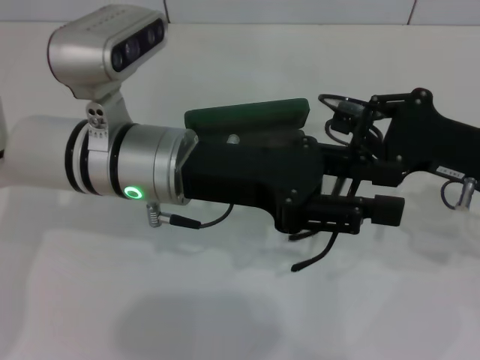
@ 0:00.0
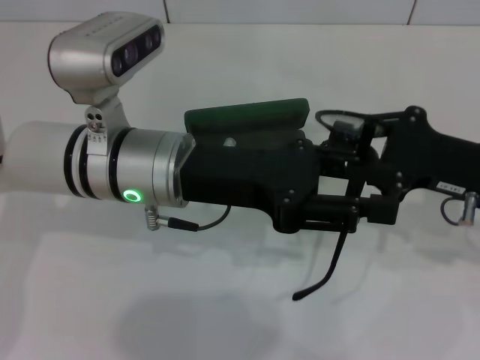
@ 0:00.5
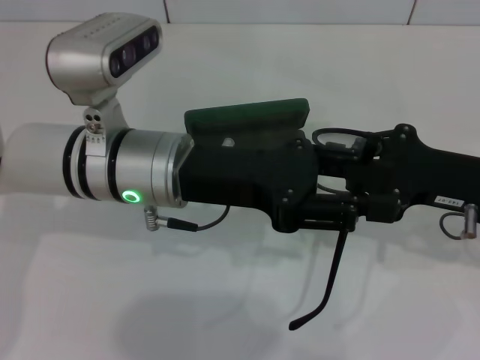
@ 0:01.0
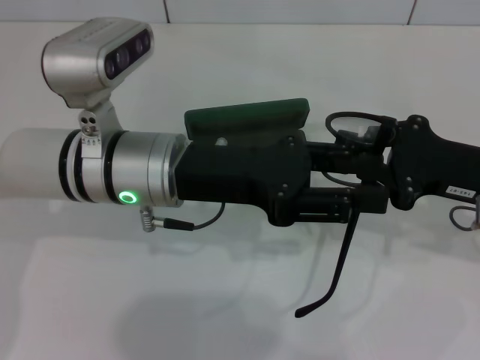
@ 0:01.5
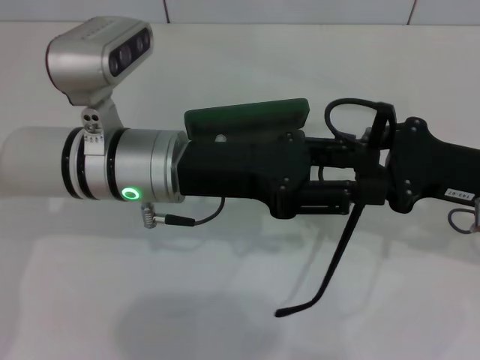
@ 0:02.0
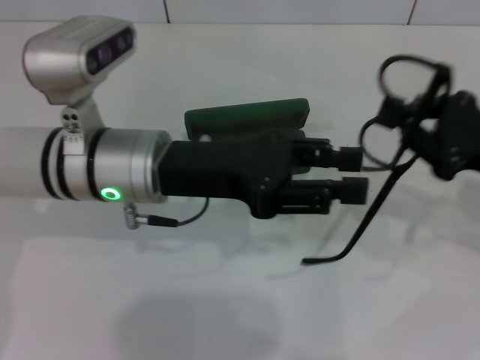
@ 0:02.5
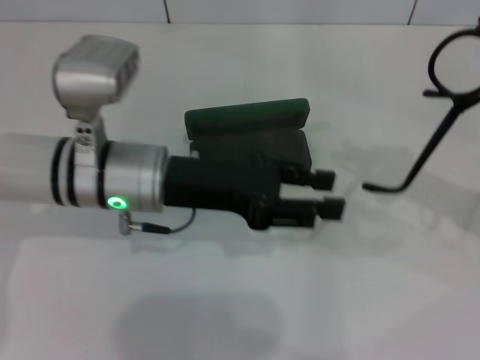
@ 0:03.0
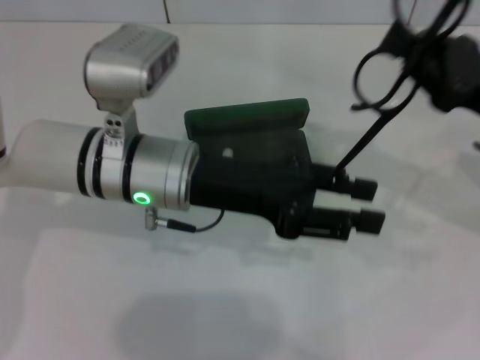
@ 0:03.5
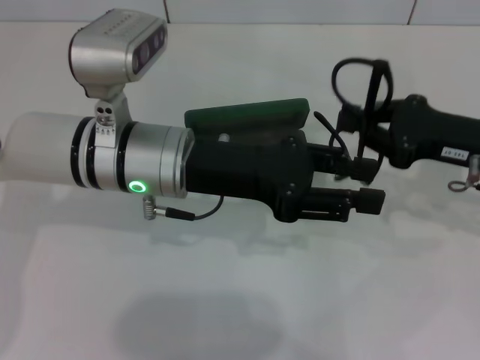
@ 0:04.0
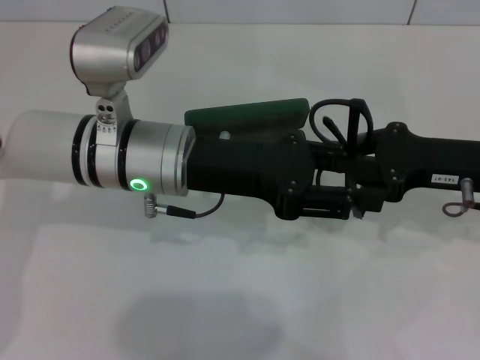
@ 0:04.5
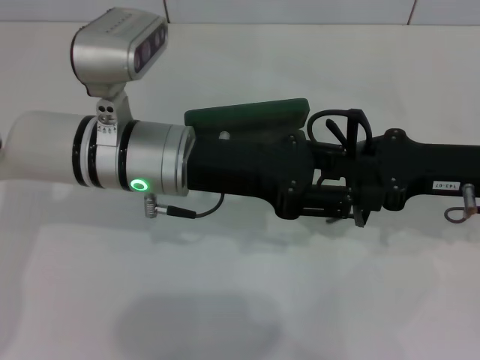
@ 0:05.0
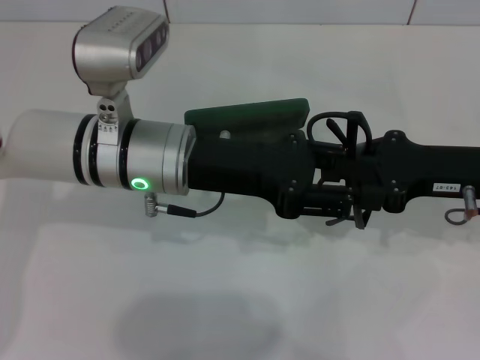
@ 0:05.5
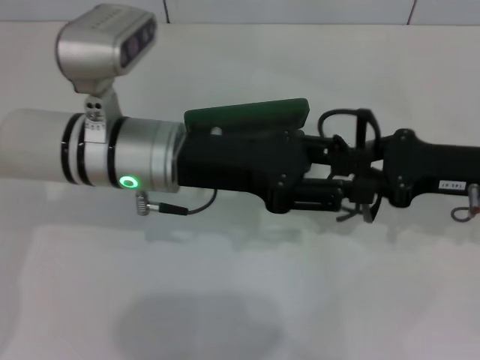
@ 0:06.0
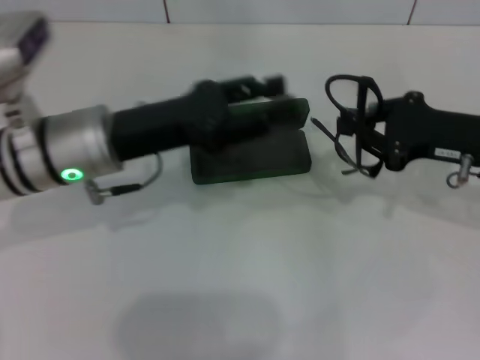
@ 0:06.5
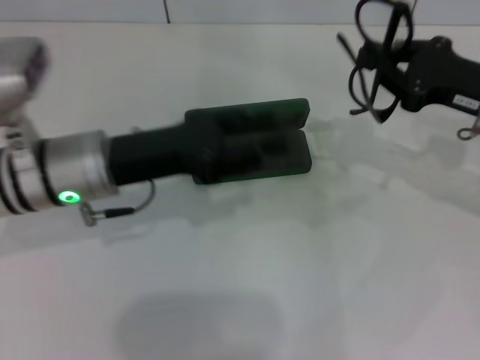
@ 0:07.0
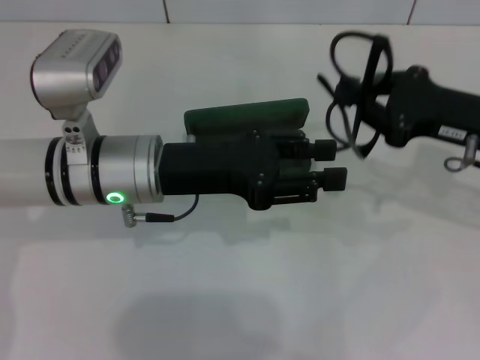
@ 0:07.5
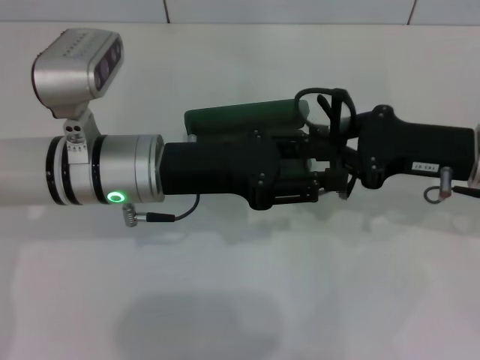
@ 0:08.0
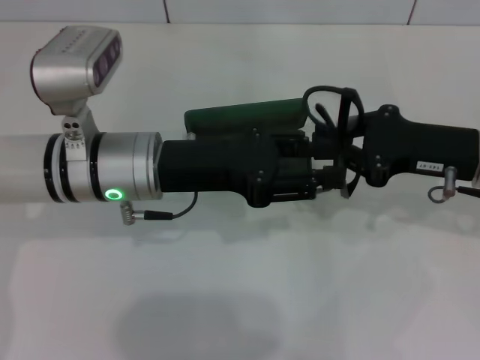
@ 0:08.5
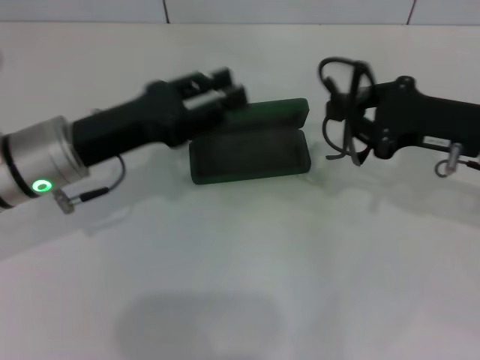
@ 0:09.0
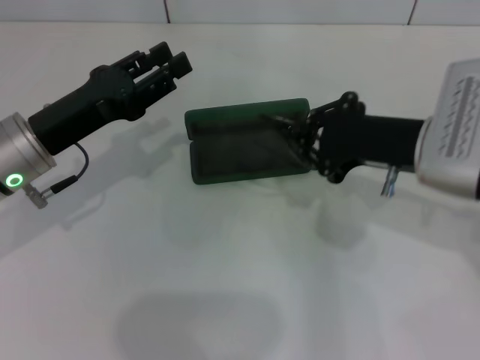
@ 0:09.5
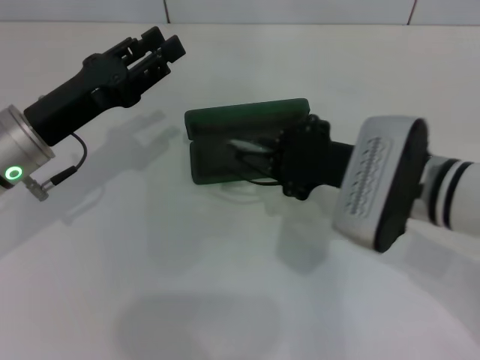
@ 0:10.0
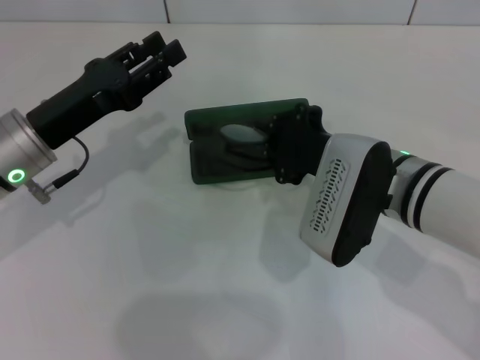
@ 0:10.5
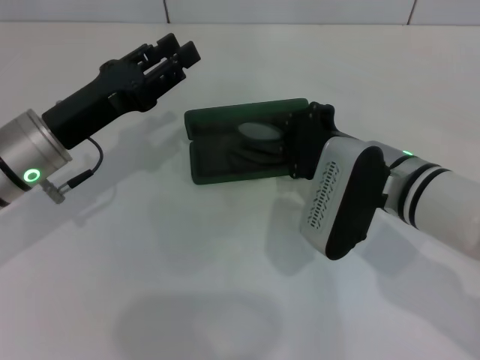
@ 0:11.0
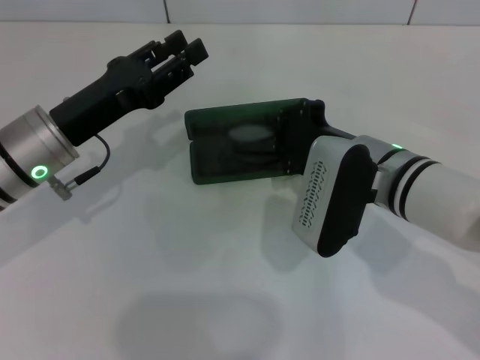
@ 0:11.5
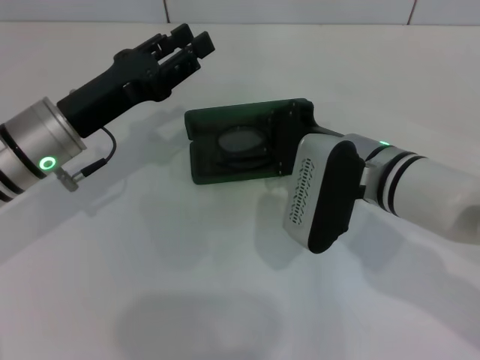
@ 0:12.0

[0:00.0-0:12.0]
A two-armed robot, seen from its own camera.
Step, 0:00.0 to 0:05.5: Fold the frame with your left hand.
0:00.0 to 0:02.0: The grippers stay close to where they were, moving slightly.
0:04.0 to 0:06.0: The grippers stay close to where they were, moving slightly.
0:08.0 to 0:10.0: Both grippers travel together to the left, roughly 10 cm.
0:10.0 to 0:12.0: There are only small adjustments of the grippers.

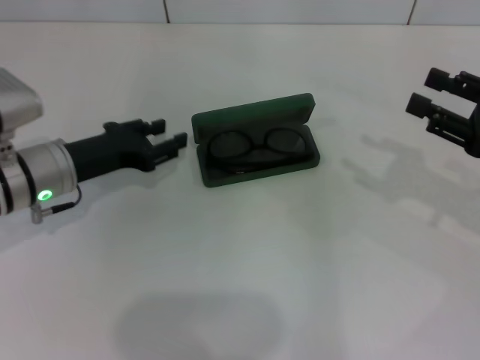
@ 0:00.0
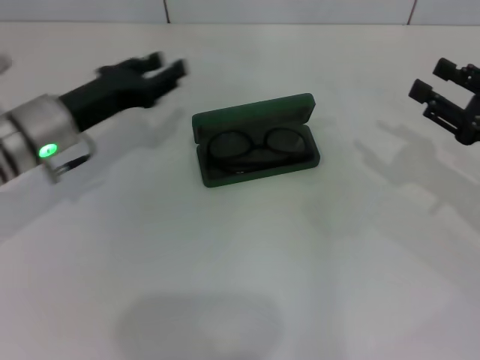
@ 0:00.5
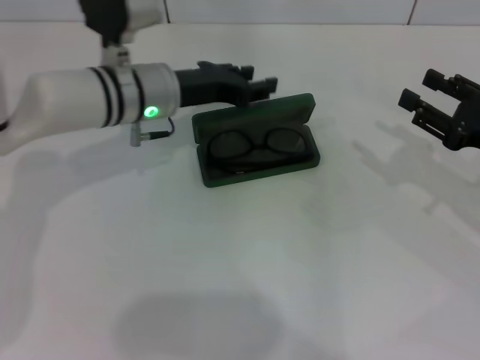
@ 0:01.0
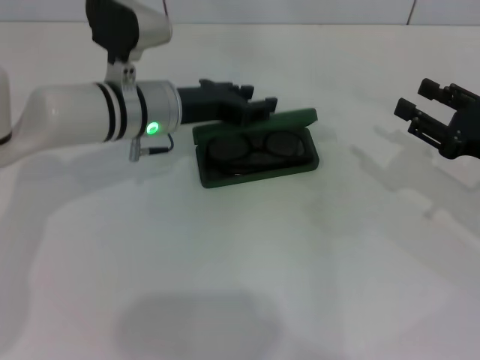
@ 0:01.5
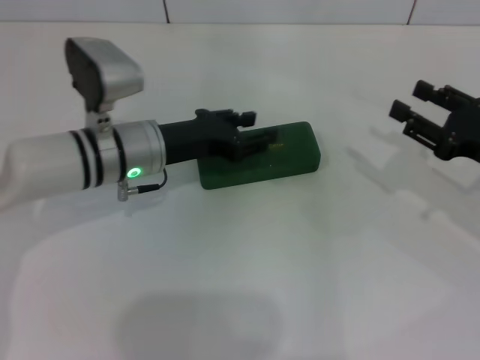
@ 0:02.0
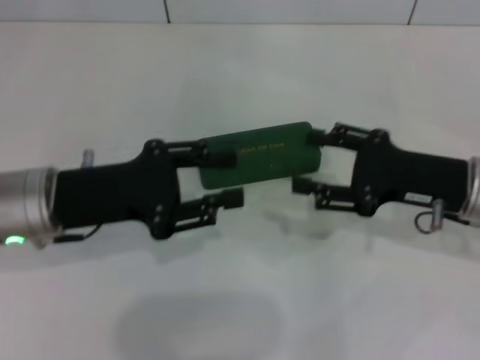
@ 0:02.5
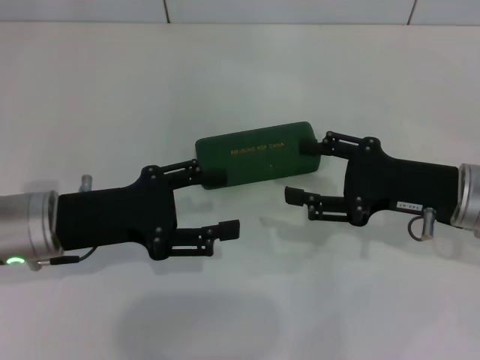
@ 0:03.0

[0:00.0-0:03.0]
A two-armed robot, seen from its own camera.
Step, 0:00.0 to 0:01.5: Close the glasses case with your left hand.
0:00.0 to 0:01.5: The left gripper shifts some 10 cm to the right and forward.
0:01.5 to 0:03.0: The left gripper travels backward and to the left by some 15 cm. Meanwhile the right gripper travels to the left by roughly 10 cm.
